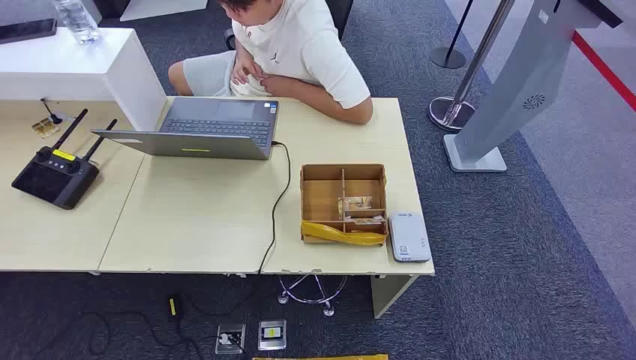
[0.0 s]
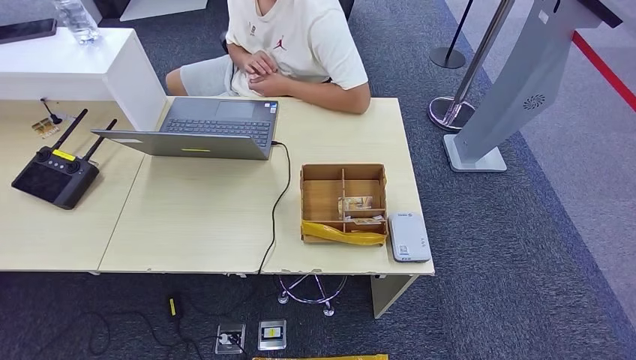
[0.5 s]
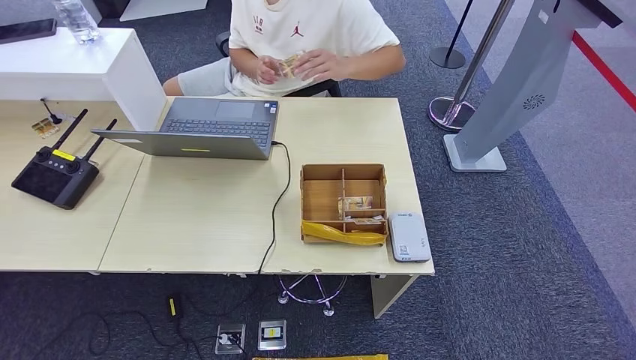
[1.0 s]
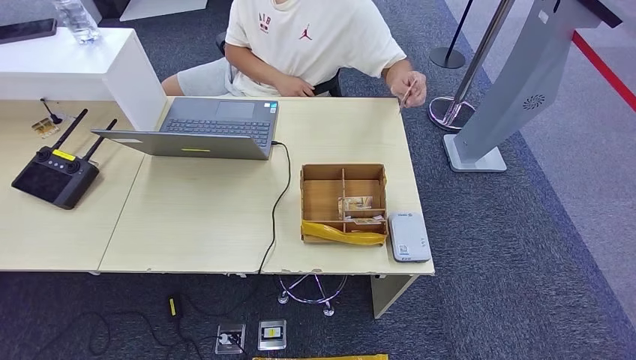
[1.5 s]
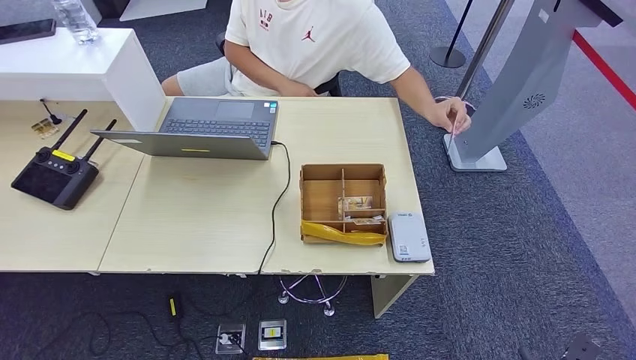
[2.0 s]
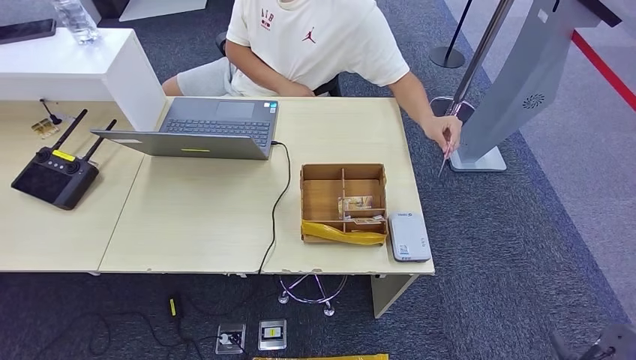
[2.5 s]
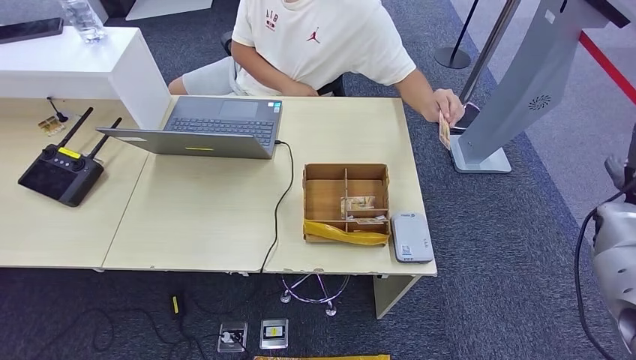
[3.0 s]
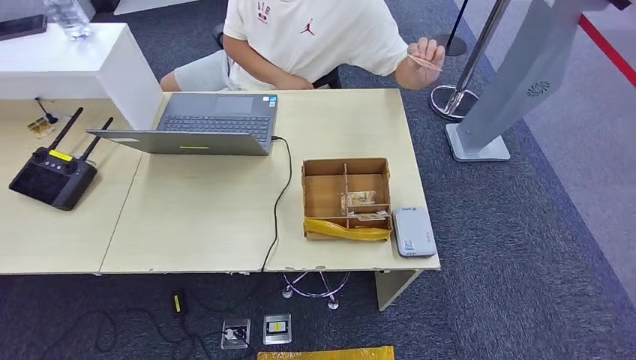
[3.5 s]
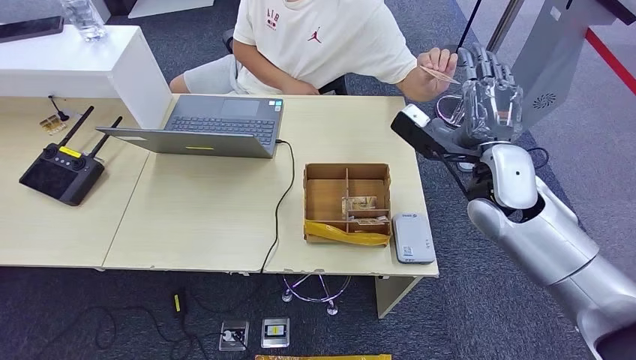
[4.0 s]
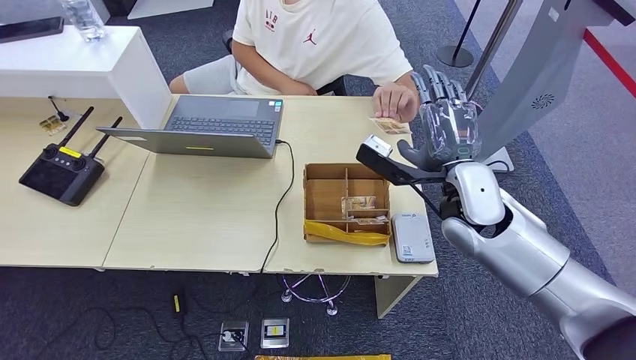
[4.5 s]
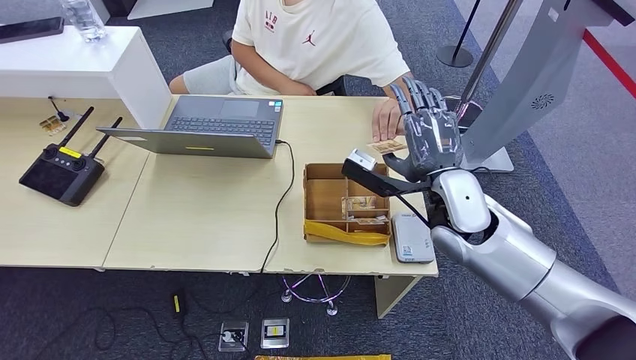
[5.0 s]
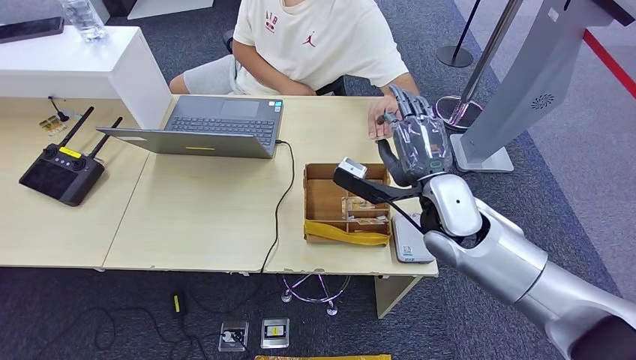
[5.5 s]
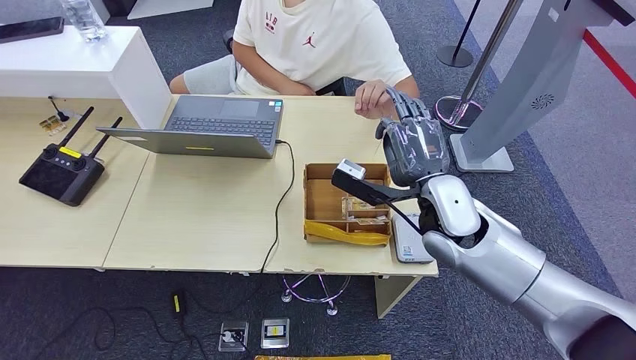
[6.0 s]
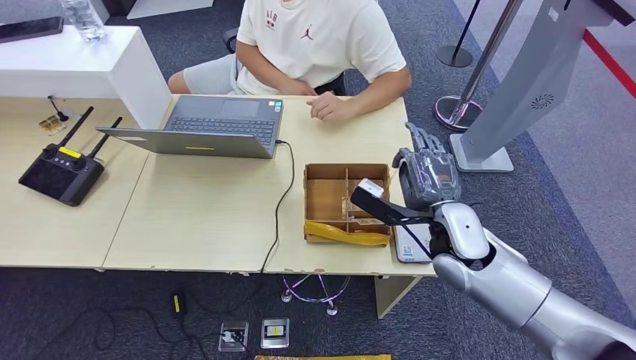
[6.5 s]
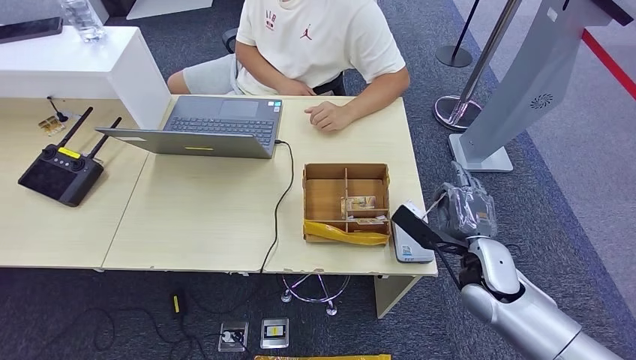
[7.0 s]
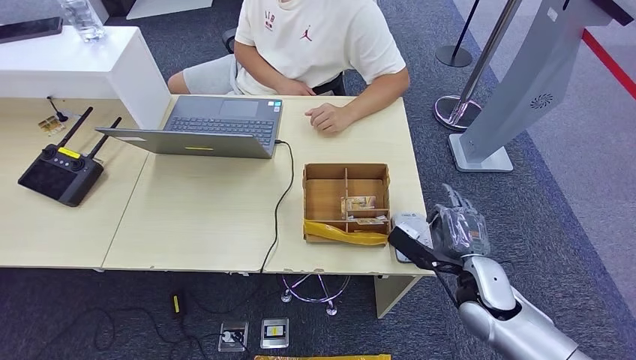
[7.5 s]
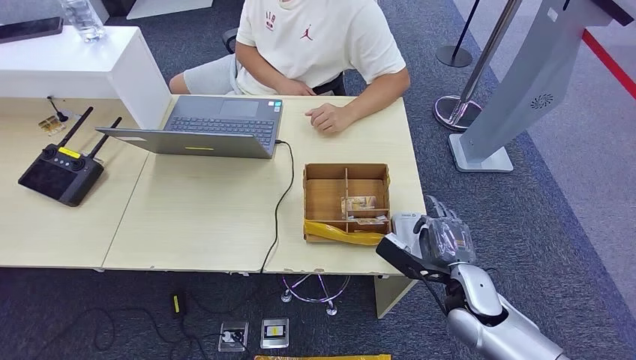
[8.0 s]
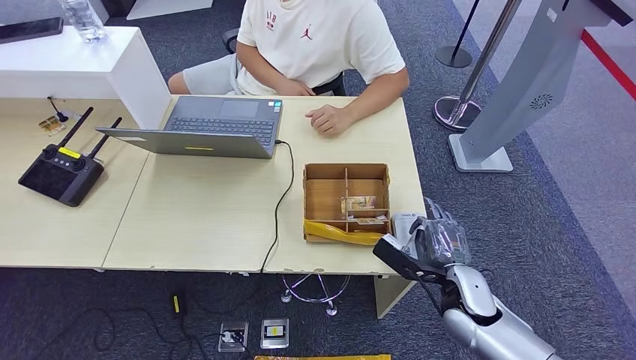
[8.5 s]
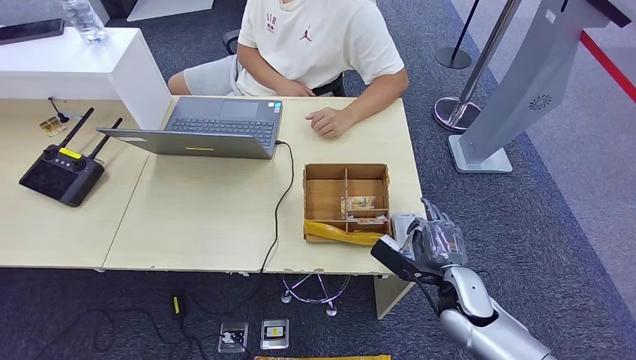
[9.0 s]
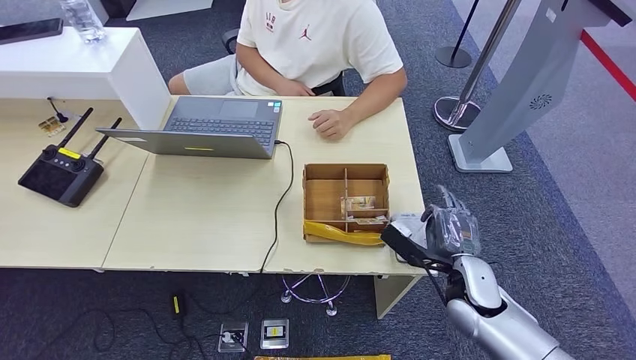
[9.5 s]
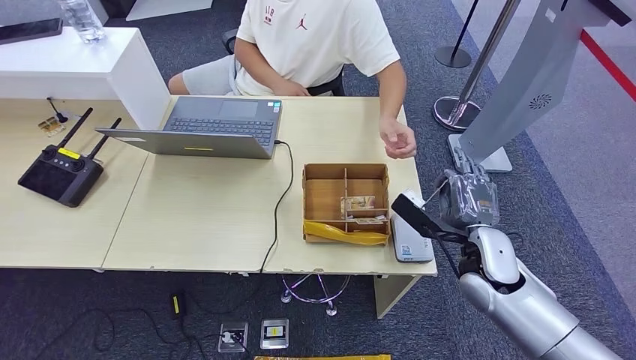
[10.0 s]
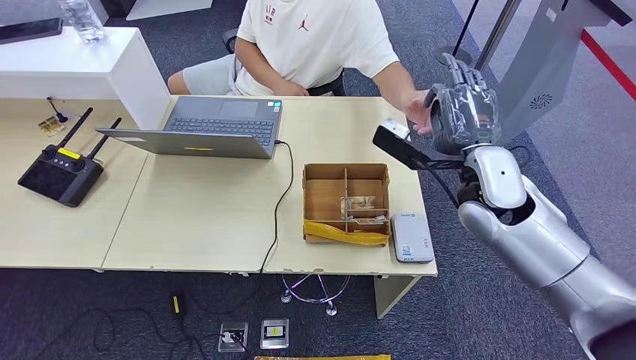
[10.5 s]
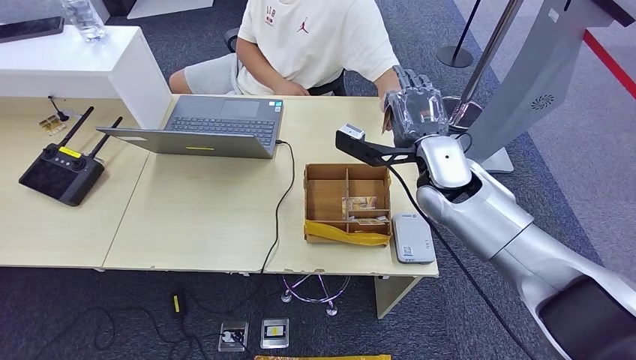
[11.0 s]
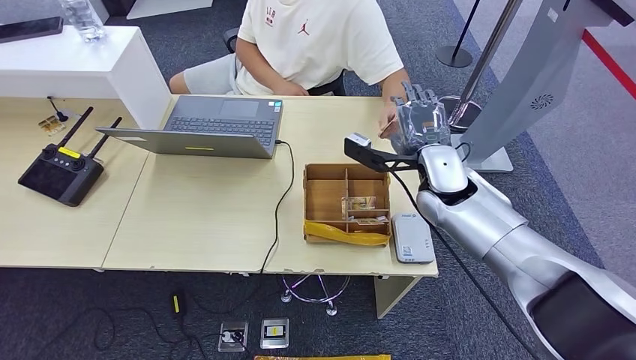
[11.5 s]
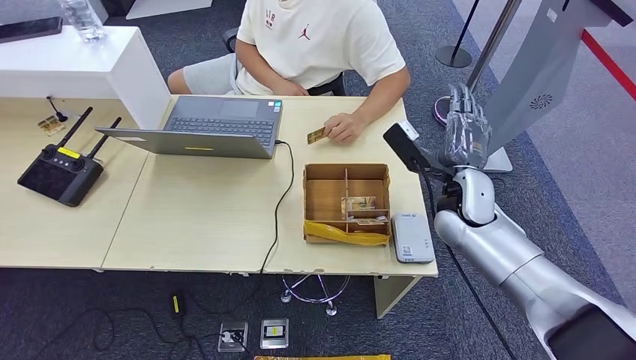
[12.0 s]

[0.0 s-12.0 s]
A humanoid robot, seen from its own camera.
Step, 0.0 to 5.5 s: Take the ID card from the person's hand.
Step, 7.0 to 9.5 s: Place the ID card on the card reader.
4.0 to 6.0 s: The right hand heads to the left, covering roughly 5 cm.
6.0 to 8.0 s: The right hand is displaced downward, backward and to the right by some 20 cm.
8.0 to 10.0 s: The right hand travels upward by some 5 cm.
10.0 to 12.0 s: The right hand travels forward and upward by some 10 cm.

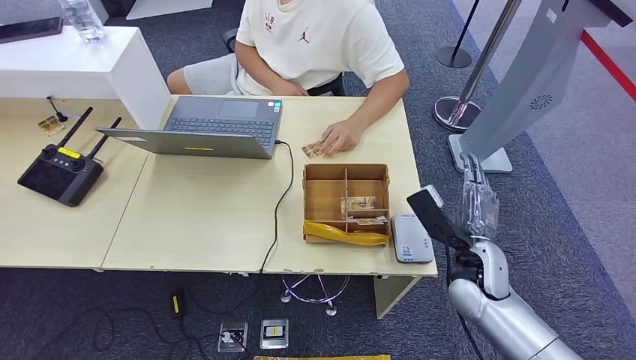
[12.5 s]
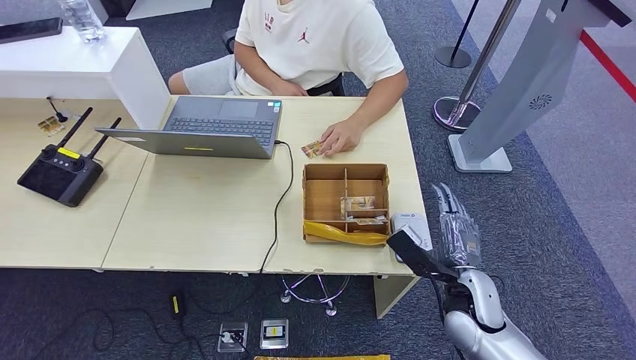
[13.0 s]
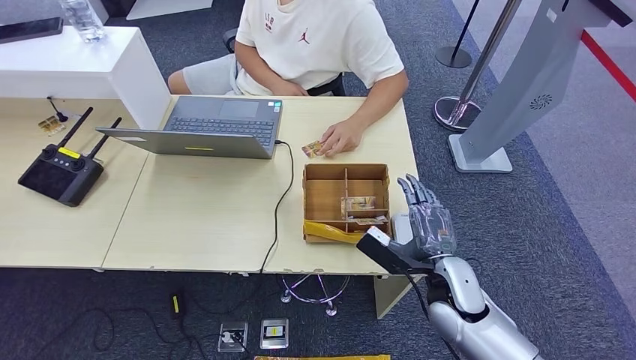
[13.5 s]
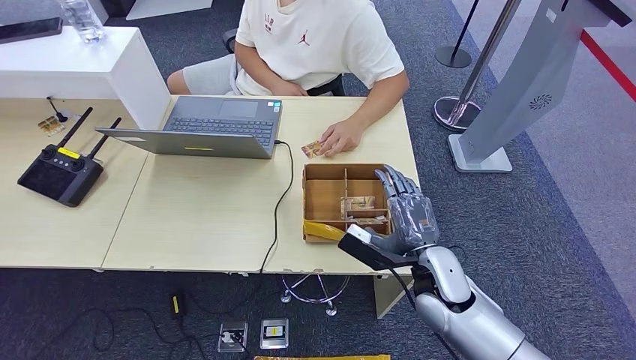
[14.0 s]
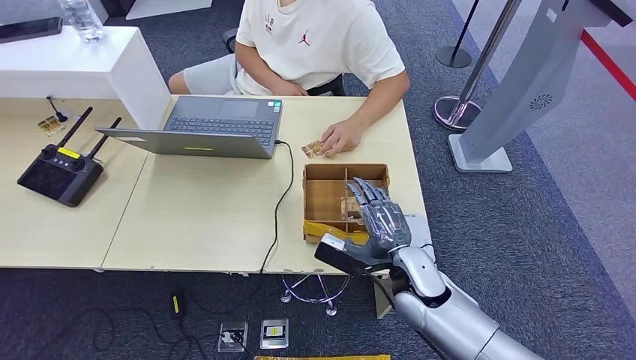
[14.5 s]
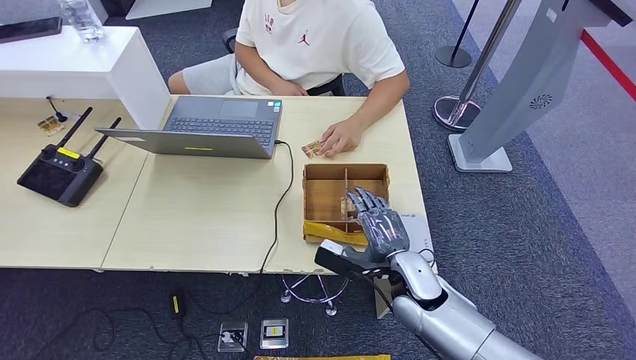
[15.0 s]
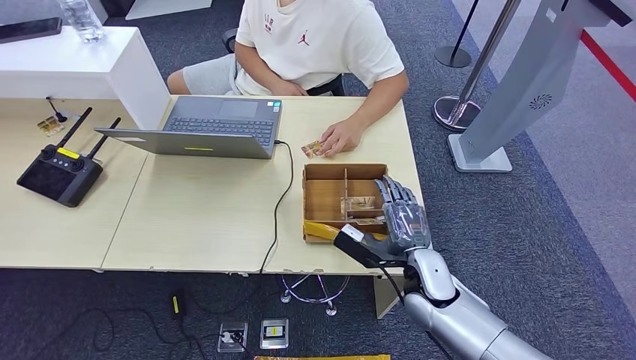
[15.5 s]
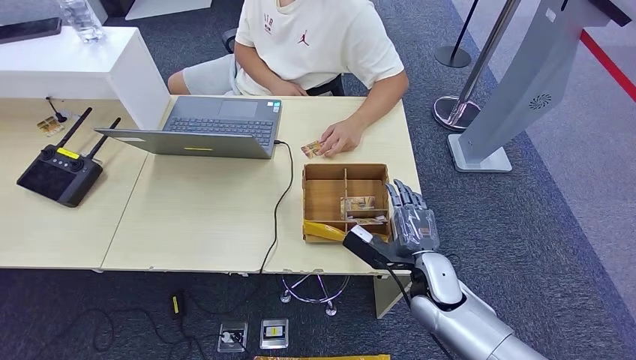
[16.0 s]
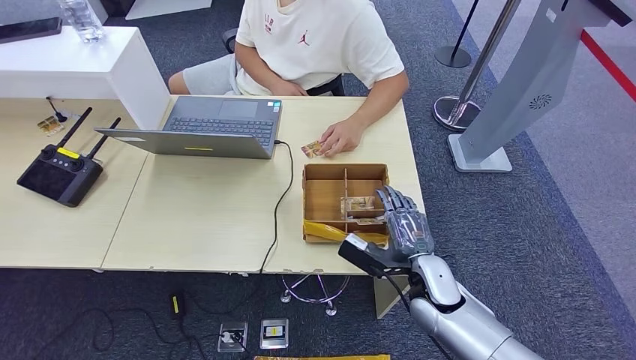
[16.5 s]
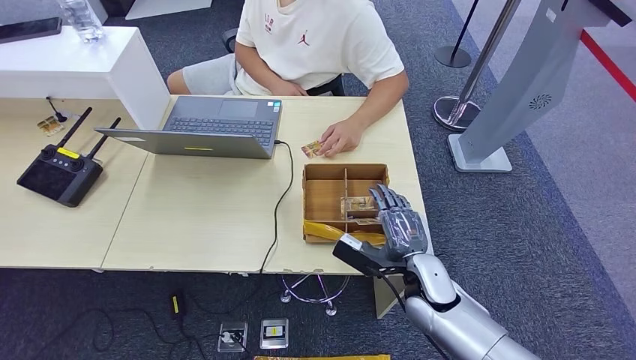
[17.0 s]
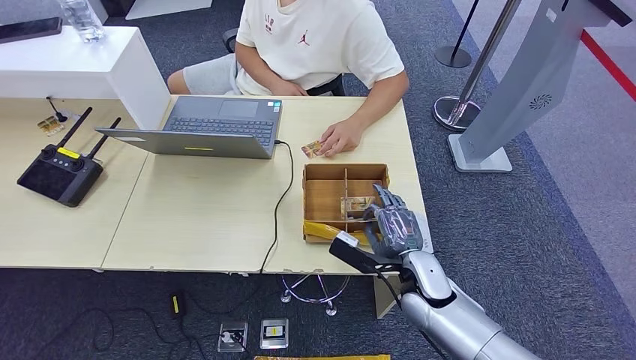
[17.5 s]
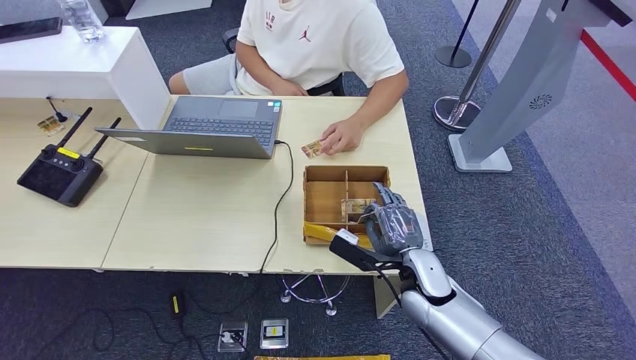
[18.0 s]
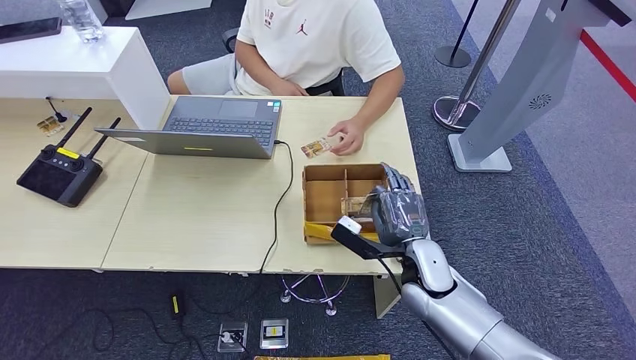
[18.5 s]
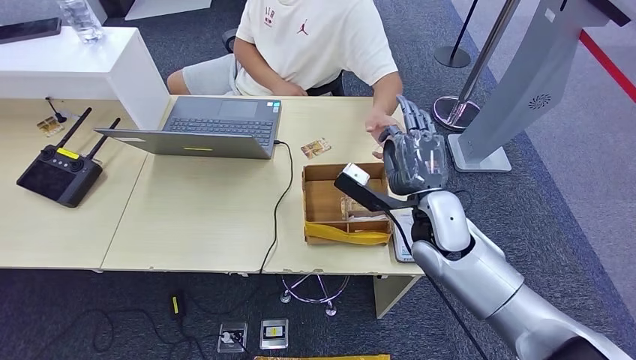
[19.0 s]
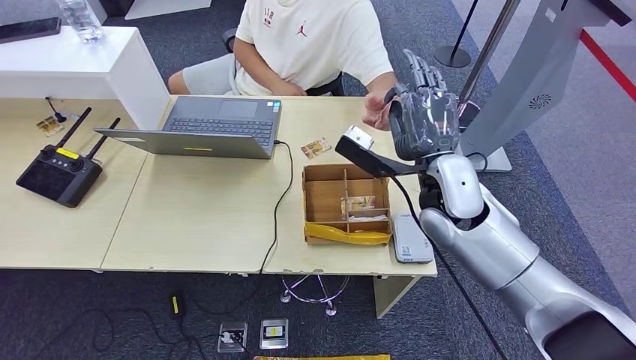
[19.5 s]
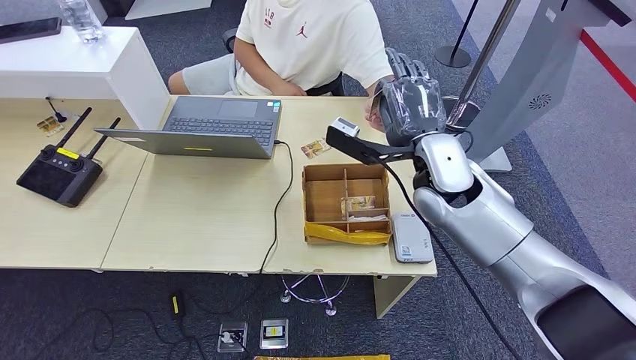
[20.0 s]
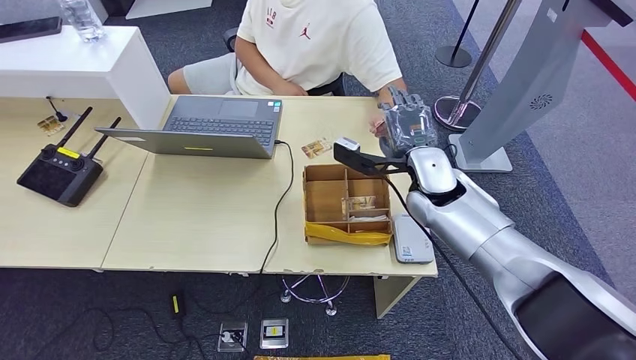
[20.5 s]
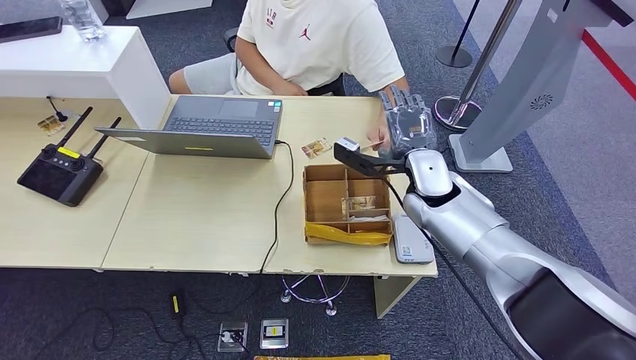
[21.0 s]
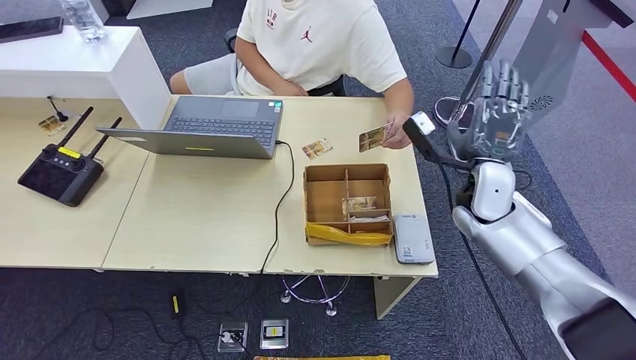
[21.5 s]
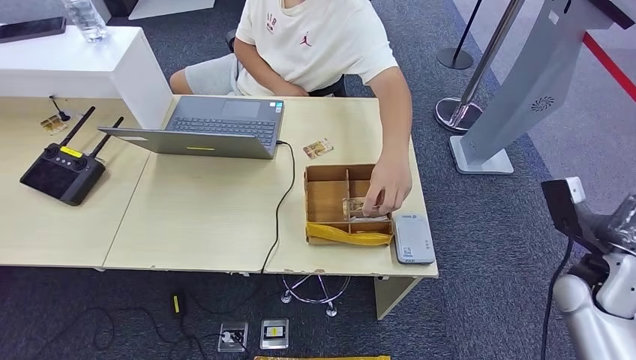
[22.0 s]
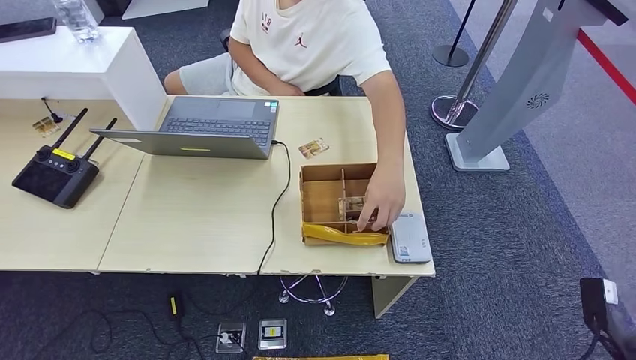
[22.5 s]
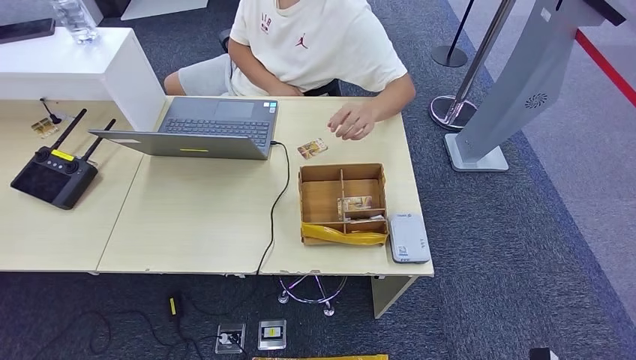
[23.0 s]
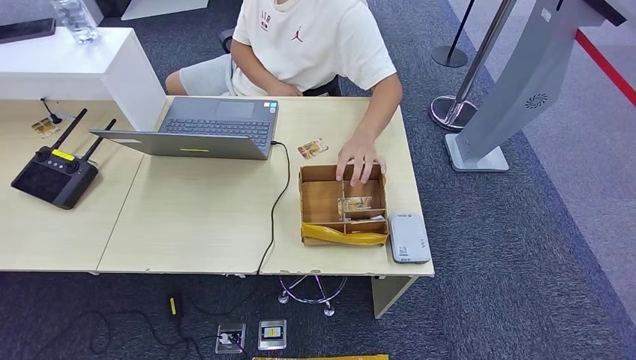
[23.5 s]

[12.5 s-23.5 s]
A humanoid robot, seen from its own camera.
Step, 16.5 to 19.0 s: Pick up the room key from the key card box.
Step, 19.5 to 23.5 s: Hand the room key to the person.
12.5 to 14.5 s: The right hand heads to the left, covering some 10 cm.
14.5 to 16.0 s: The right hand shifts by roughly 5 cm.
16.0 to 18.0 s: The hands make only small movements.
18.0 to 20.0 s: The right hand shifts approximately 20 cm upward and forward.
20.0 to 21.5 s: The right hand moves to the right and downward, some 10 cm.
